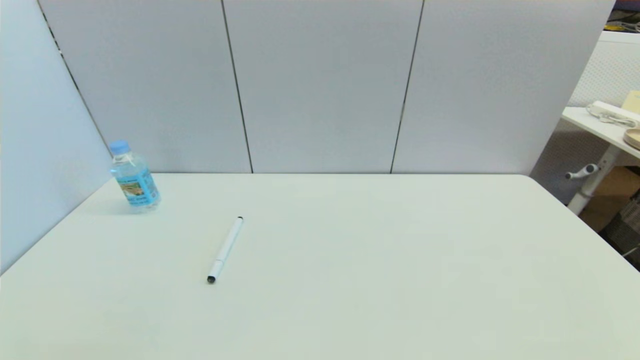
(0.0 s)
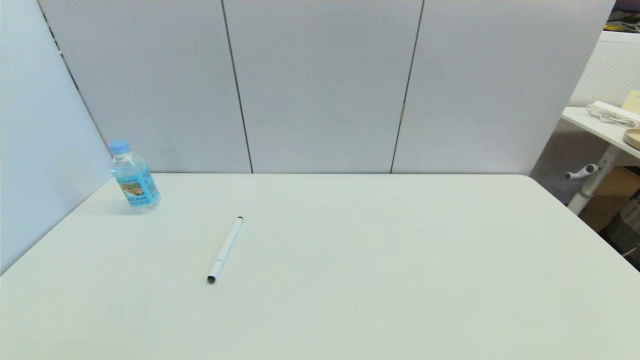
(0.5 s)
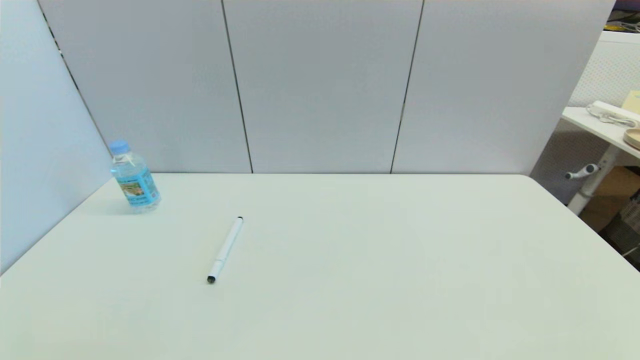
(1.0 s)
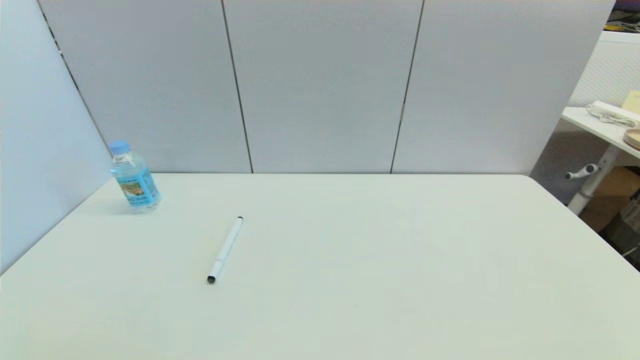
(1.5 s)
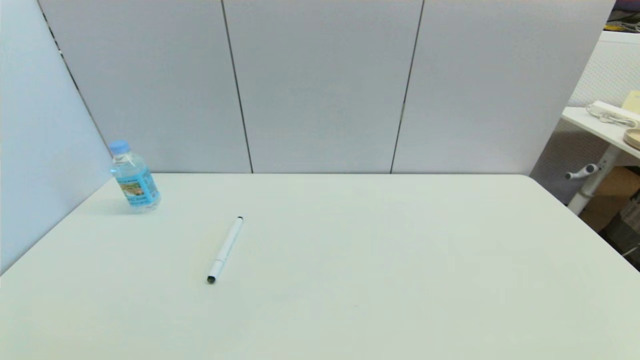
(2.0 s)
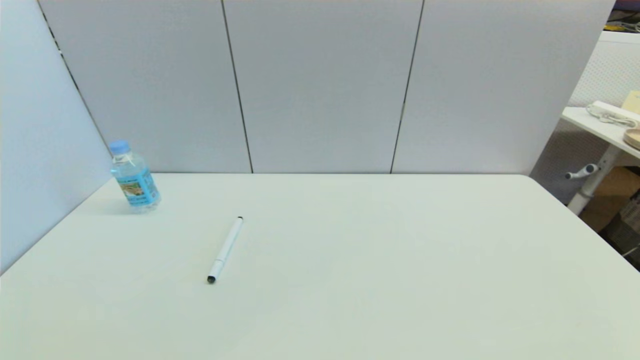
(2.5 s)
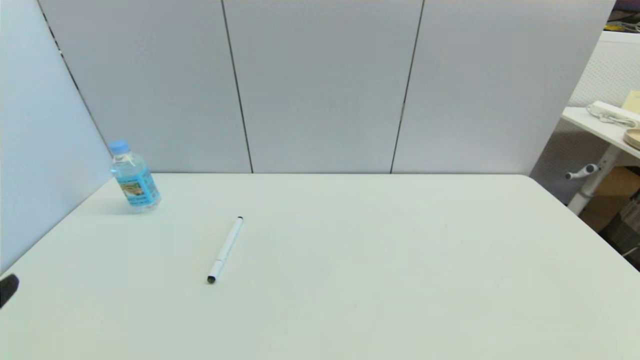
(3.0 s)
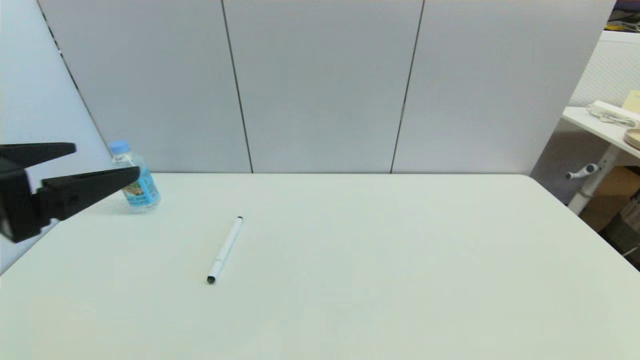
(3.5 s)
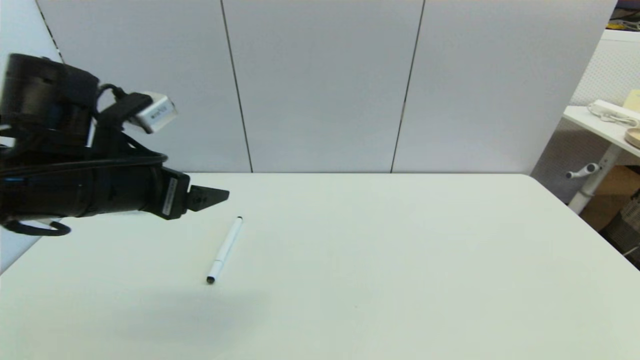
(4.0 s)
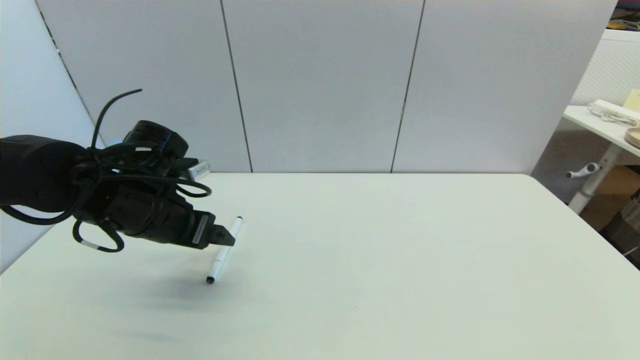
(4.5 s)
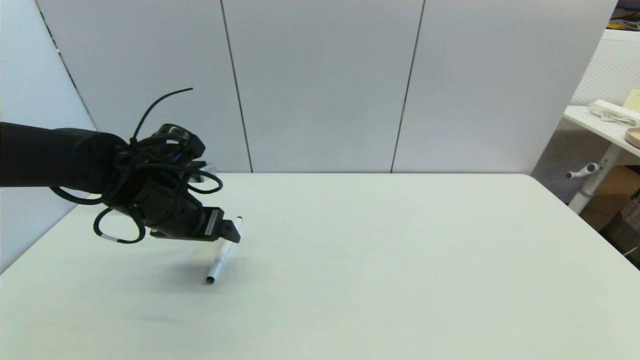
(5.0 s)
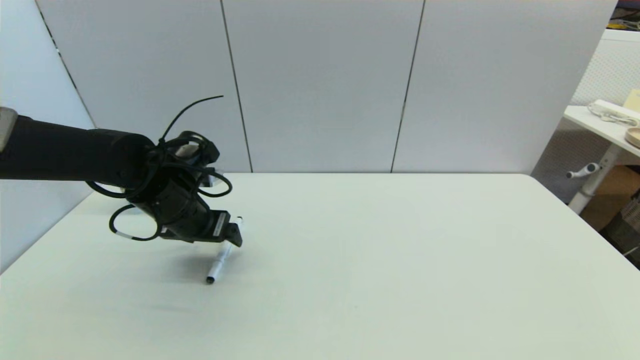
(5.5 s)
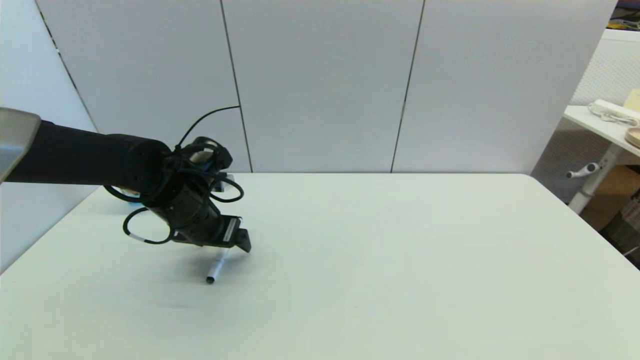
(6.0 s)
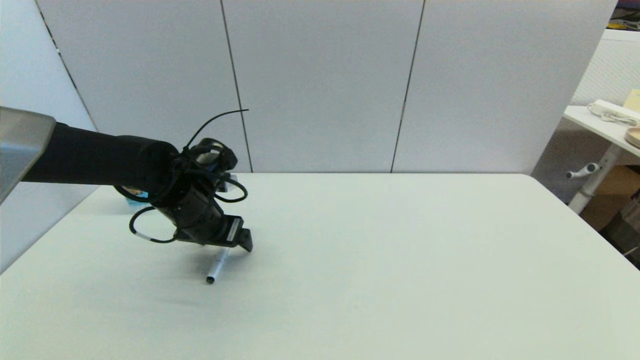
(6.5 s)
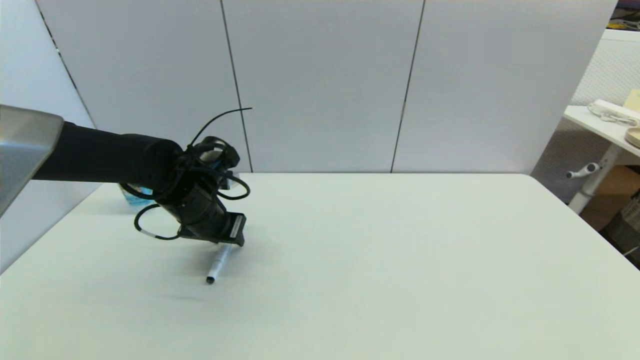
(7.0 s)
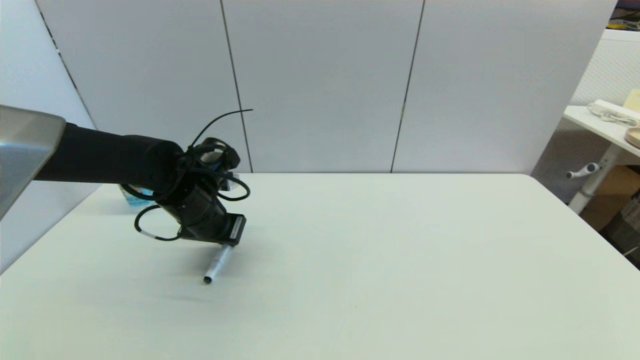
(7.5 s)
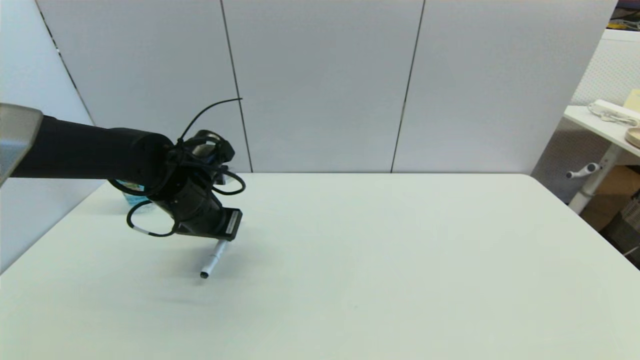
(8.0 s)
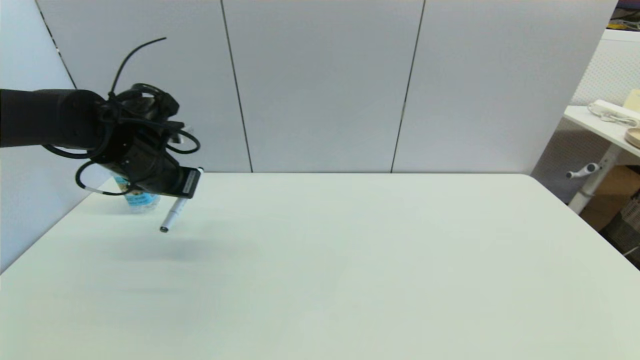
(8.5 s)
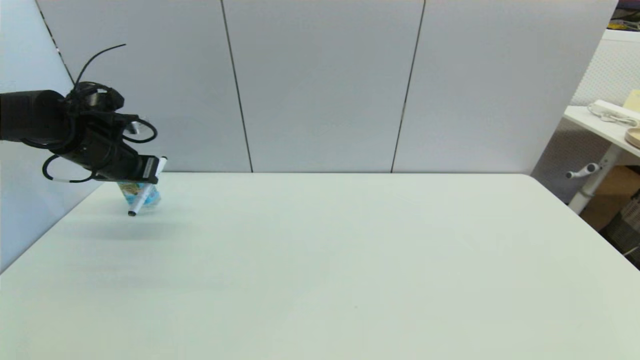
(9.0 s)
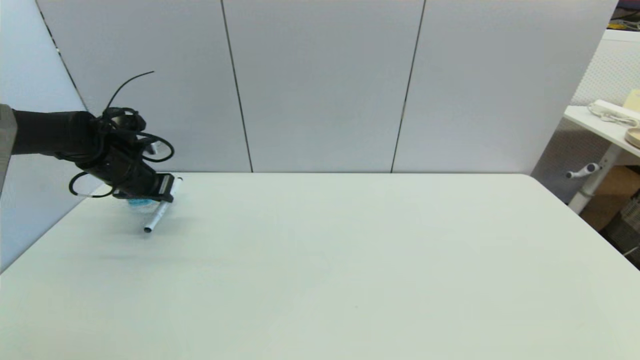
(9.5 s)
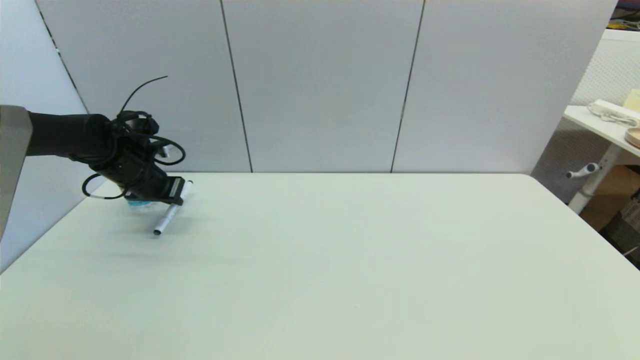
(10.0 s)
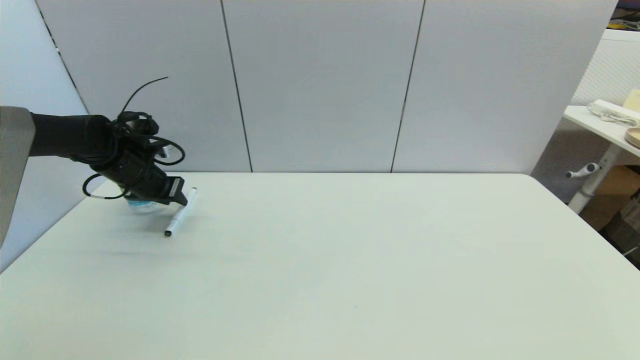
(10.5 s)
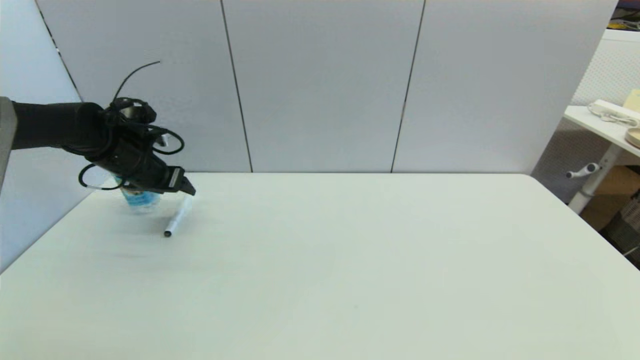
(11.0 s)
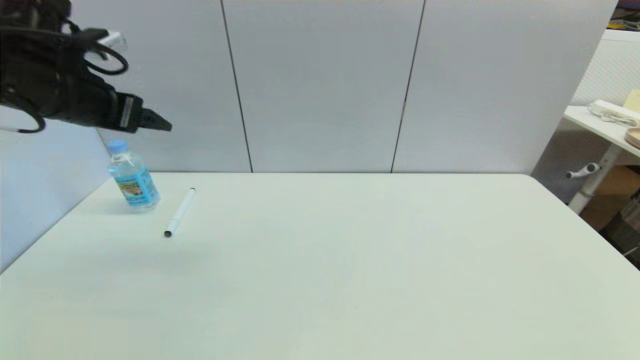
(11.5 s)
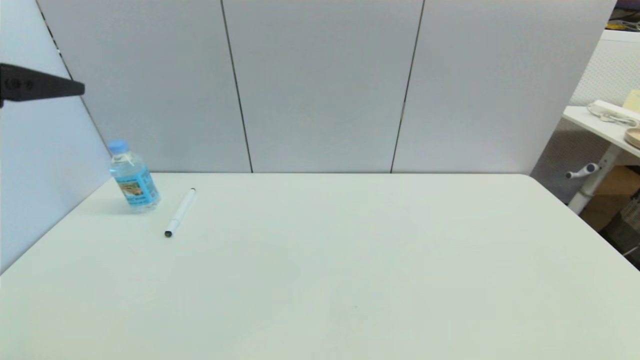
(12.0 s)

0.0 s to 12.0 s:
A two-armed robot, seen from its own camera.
Task of the whole recording: put the black marker in the designated position.
Step, 3.0 to 7.0 s: Grasp the Marker pen with left gripper.
Step, 7.5 to 10.5 s: Place the Marker pen on the table with left gripper.
0.0 to 2.0 s: Both grippers stay about where they are.
2.0 to 4.0 s: The left gripper moves forward and upward, about 30 cm.
4.0 to 6.0 s: The left gripper travels downward and forward by about 15 cm.
6.0 to 8.0 s: The left gripper closes its fingers.
8.0 to 10.0 s: The left gripper heads to the left and forward, covering about 15 cm.
10.0 to 12.0 s: The left gripper moves backward and upward, approximately 35 cm, and opens.

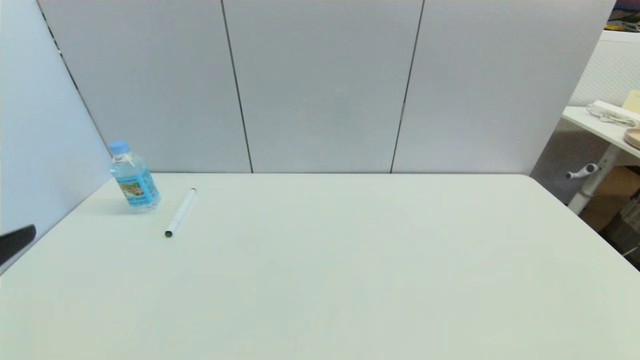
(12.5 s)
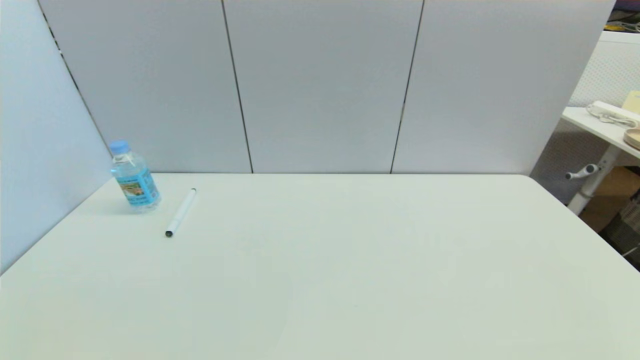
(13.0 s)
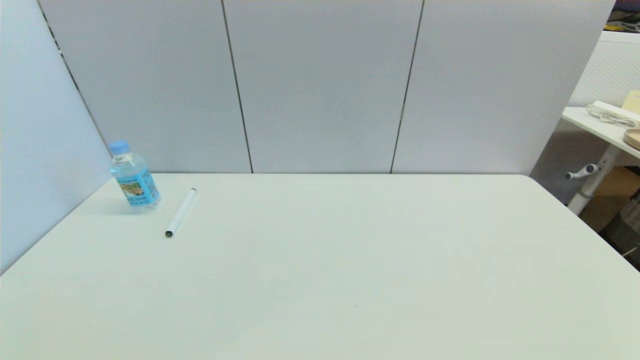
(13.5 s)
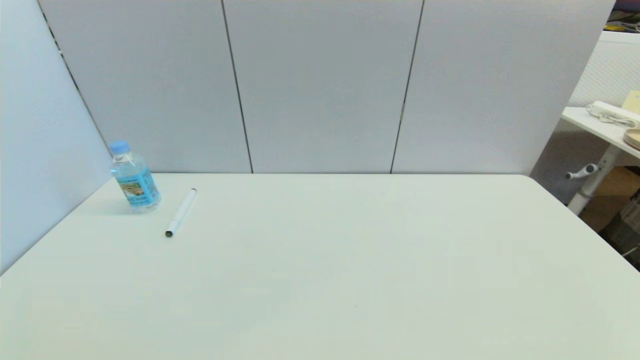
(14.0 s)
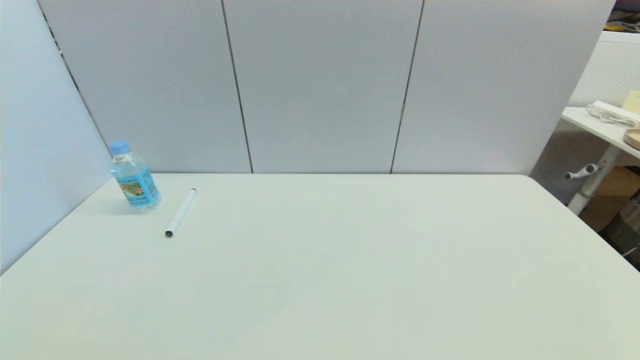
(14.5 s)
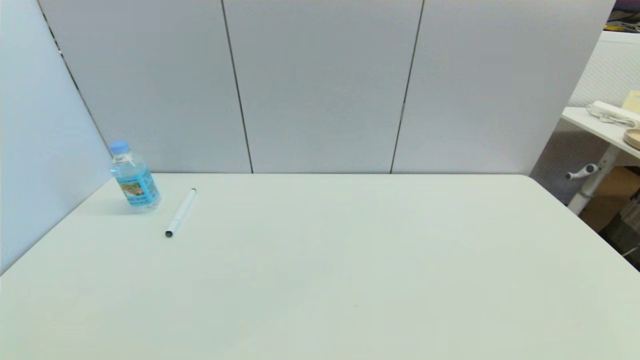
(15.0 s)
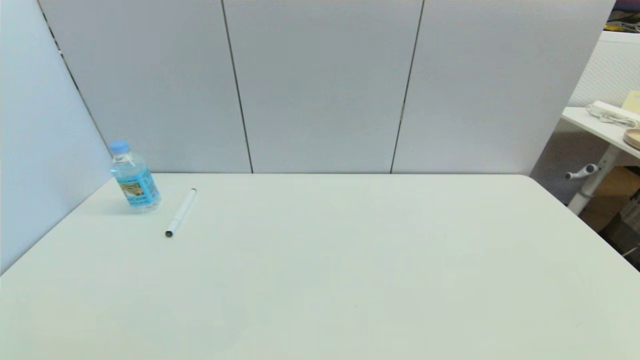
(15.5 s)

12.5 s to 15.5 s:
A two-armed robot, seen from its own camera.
Task of the whole recording: put the black marker in the designated position.
14.0 to 15.5 s: Neither gripper changes place.

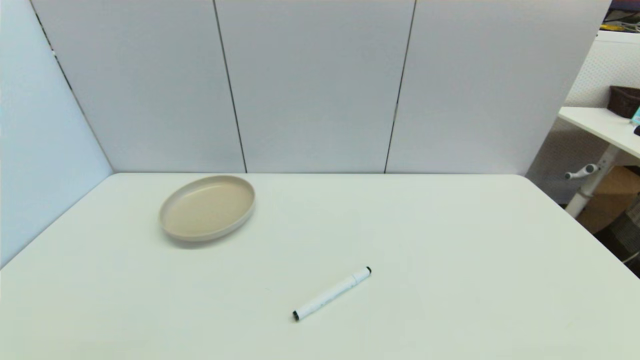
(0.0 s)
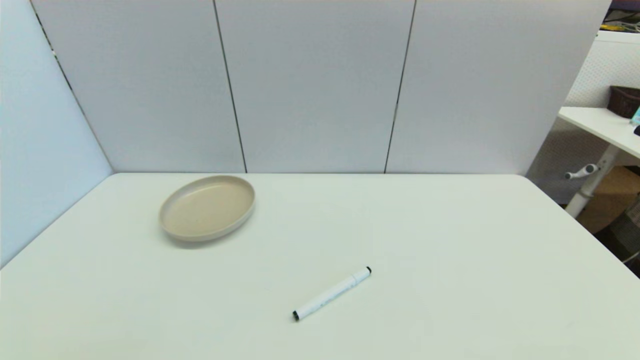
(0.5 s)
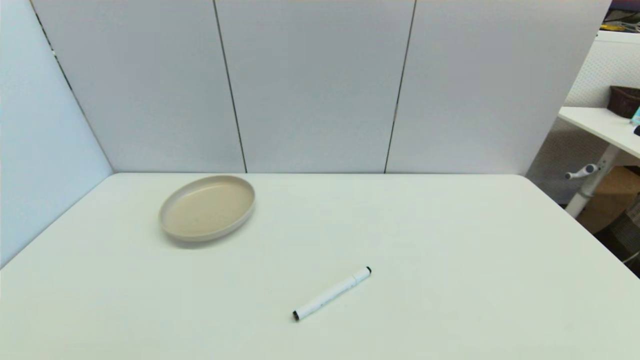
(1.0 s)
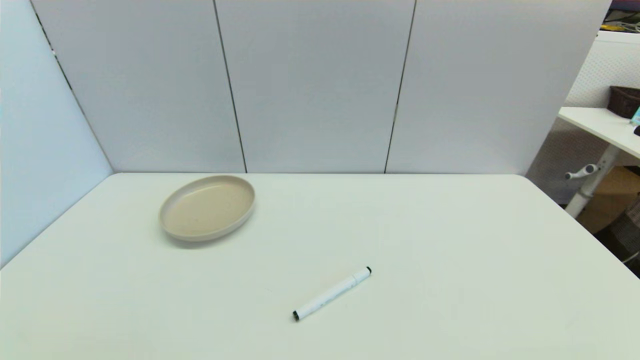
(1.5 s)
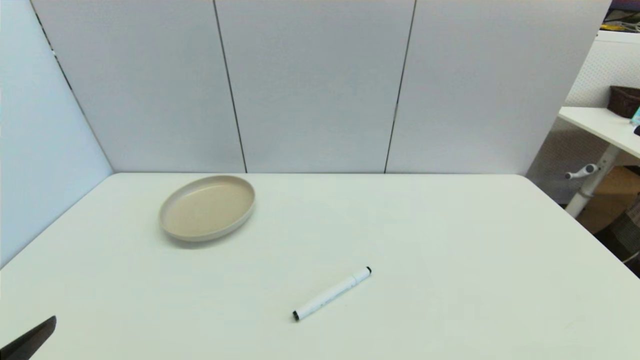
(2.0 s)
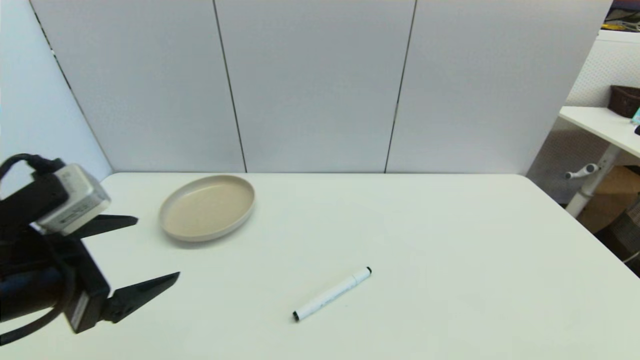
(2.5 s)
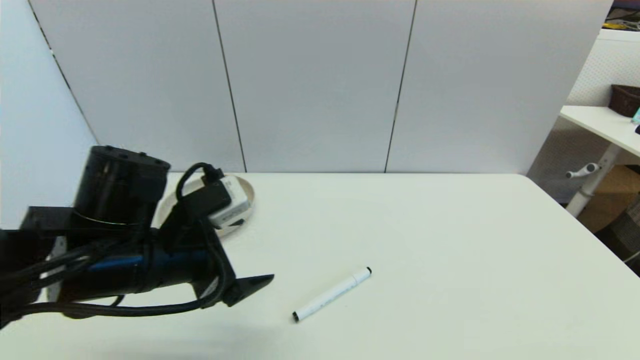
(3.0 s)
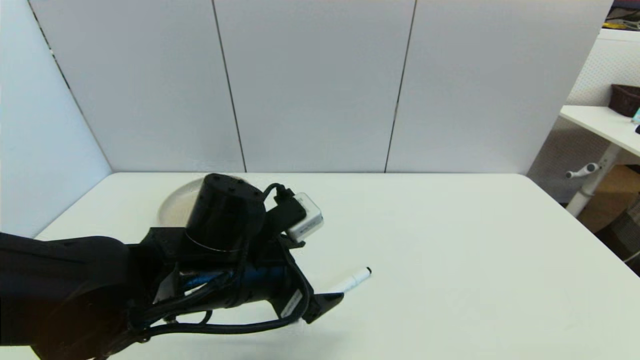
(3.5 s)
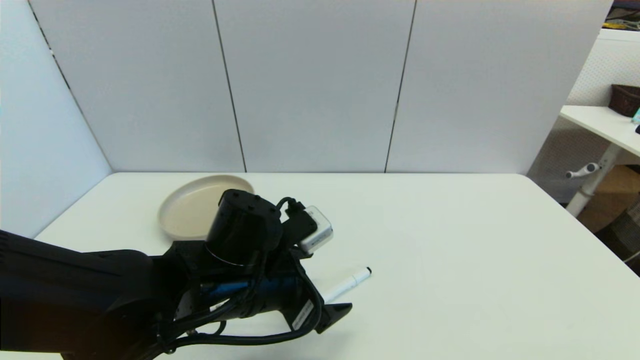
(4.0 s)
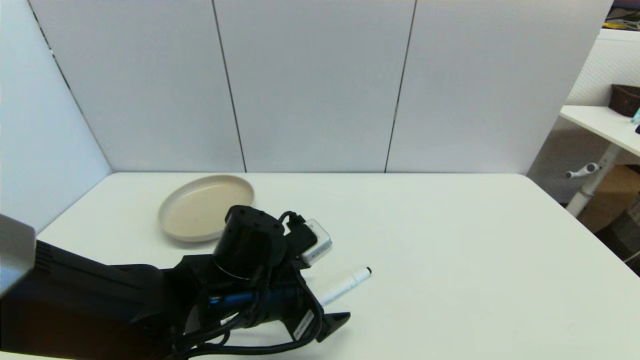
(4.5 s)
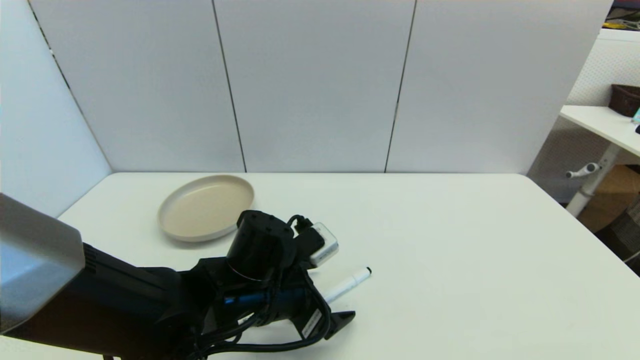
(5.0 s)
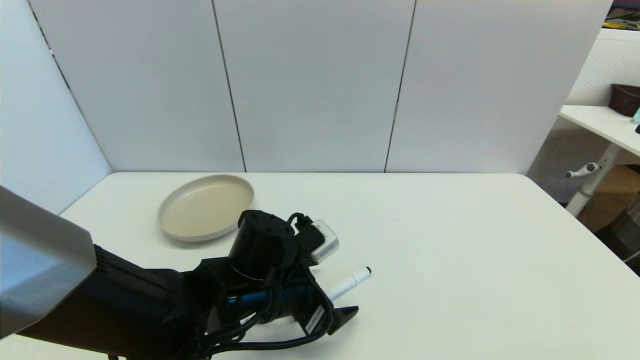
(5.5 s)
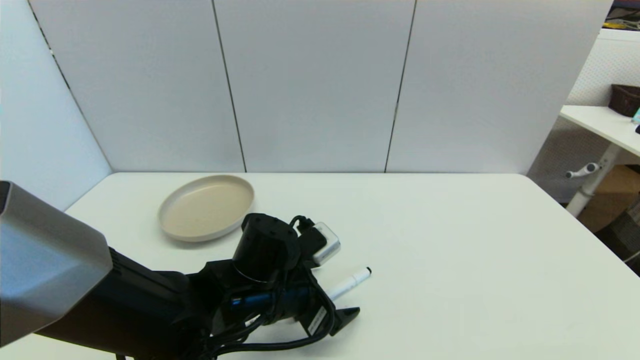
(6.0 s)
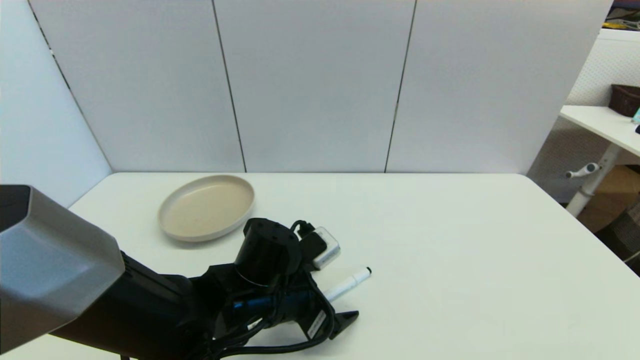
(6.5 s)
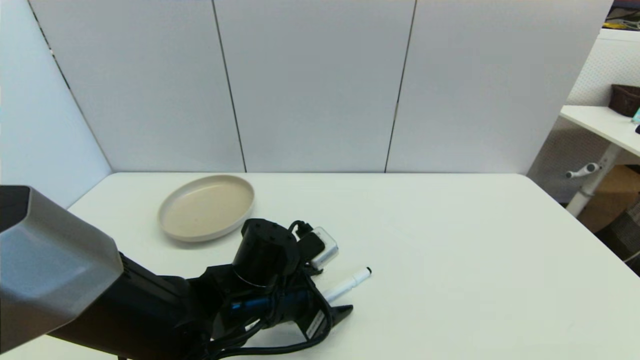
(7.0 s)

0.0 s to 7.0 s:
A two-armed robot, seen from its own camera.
Task of the whole recording: put the black marker in the designated position.
2.0 to 3.5 s: The left gripper moves to the right and forward, about 25 cm.
3.5 to 5.0 s: The left gripper shifts approximately 5 cm downward.
5.0 to 7.0 s: There are only small adjustments of the grippers.
